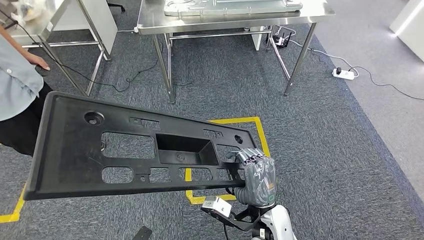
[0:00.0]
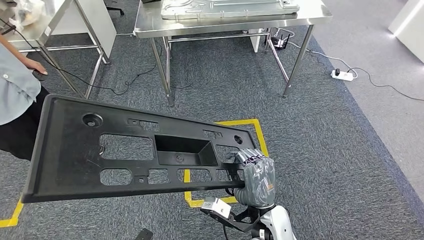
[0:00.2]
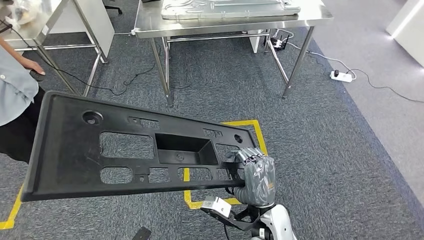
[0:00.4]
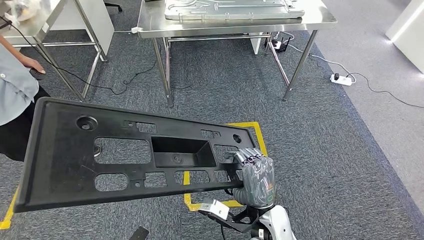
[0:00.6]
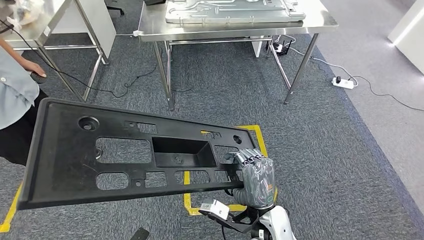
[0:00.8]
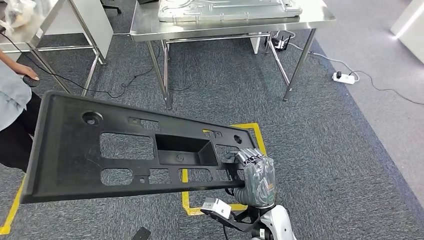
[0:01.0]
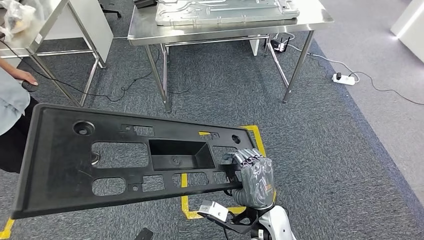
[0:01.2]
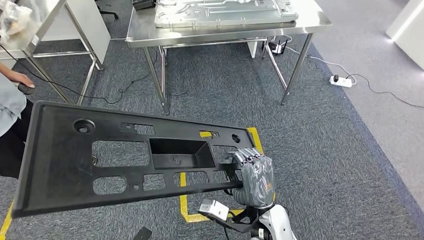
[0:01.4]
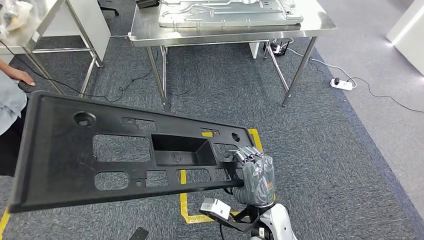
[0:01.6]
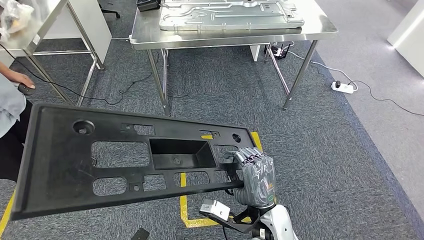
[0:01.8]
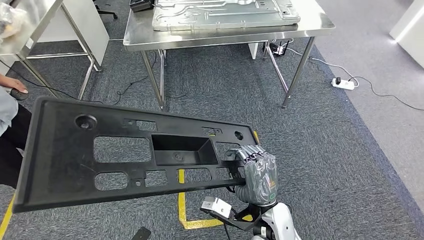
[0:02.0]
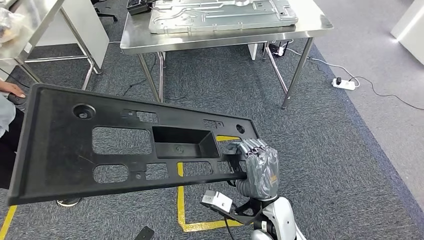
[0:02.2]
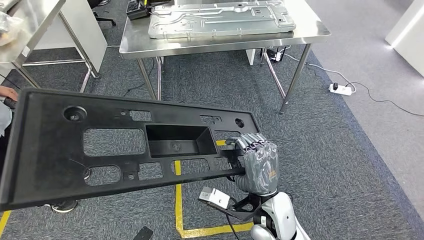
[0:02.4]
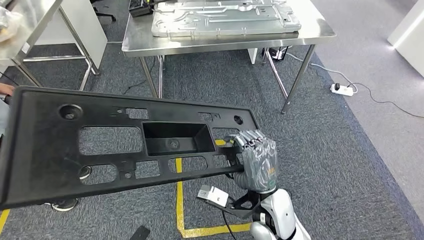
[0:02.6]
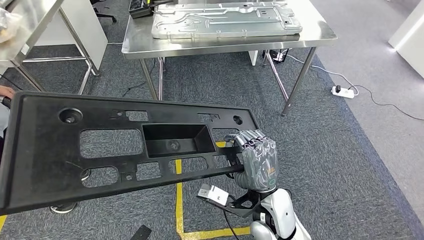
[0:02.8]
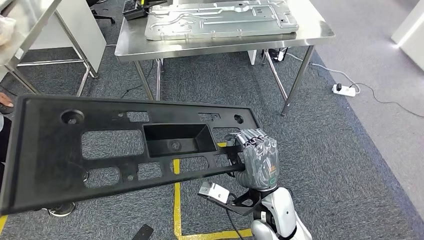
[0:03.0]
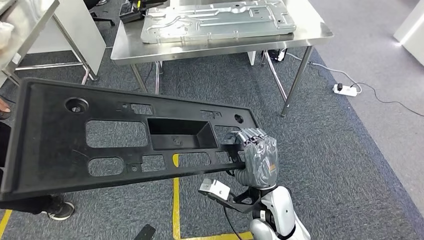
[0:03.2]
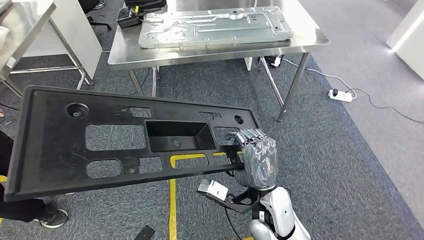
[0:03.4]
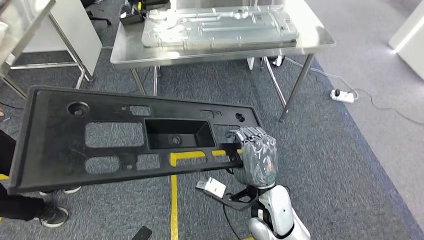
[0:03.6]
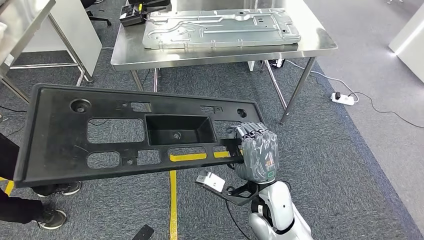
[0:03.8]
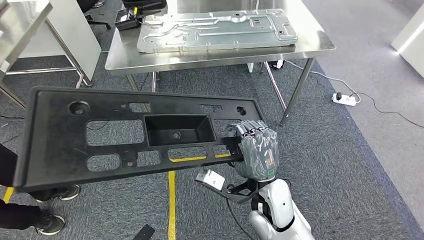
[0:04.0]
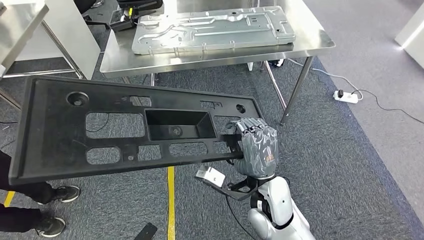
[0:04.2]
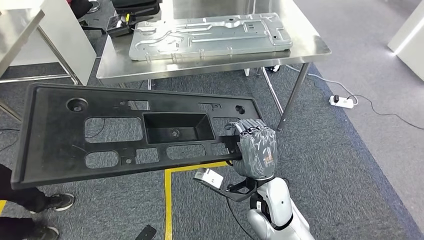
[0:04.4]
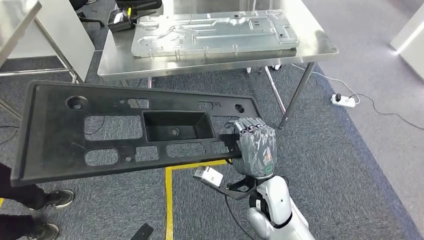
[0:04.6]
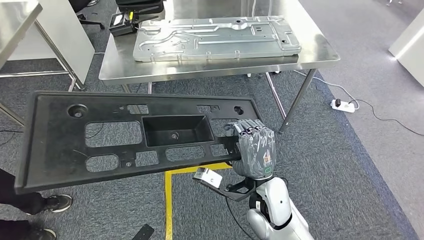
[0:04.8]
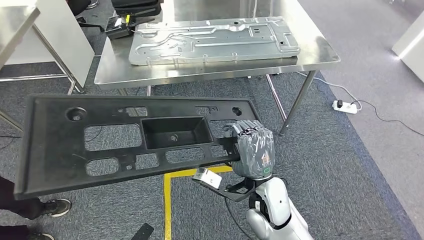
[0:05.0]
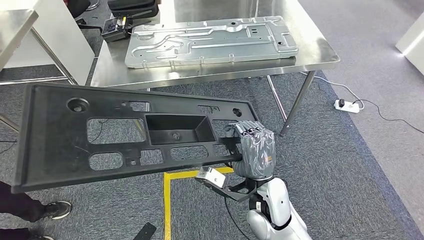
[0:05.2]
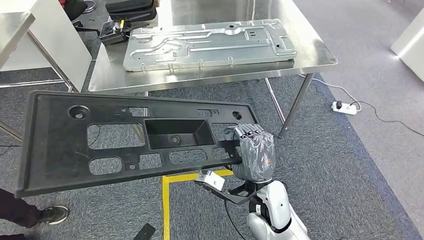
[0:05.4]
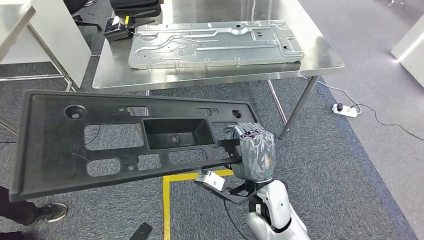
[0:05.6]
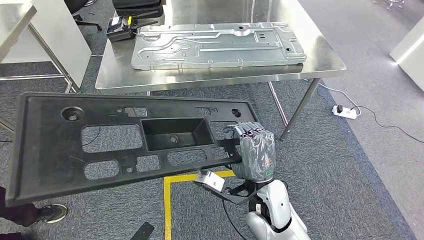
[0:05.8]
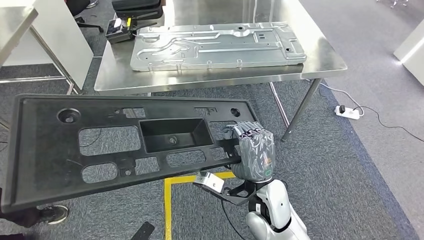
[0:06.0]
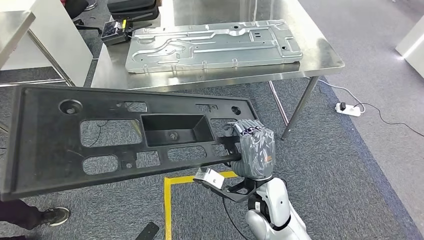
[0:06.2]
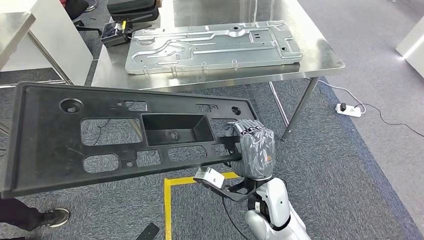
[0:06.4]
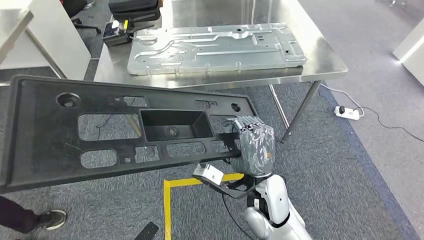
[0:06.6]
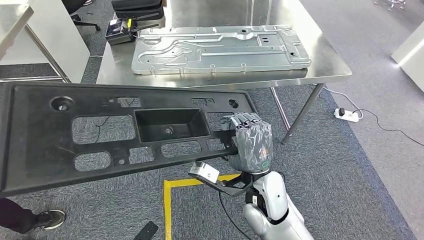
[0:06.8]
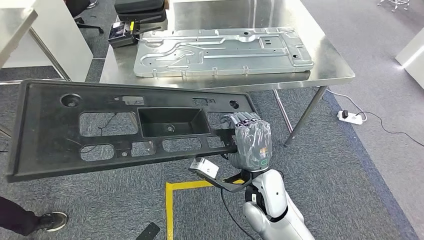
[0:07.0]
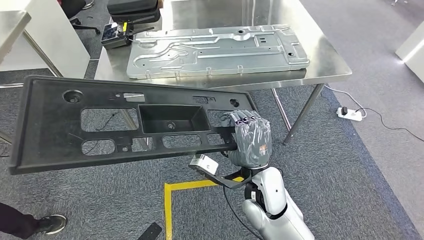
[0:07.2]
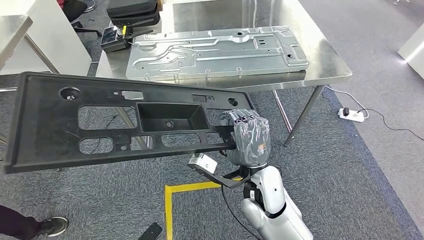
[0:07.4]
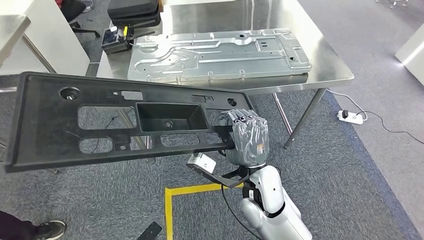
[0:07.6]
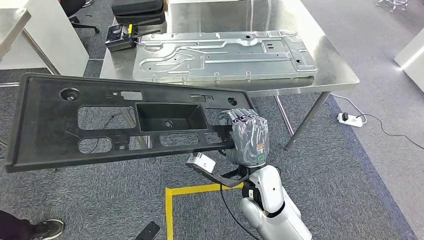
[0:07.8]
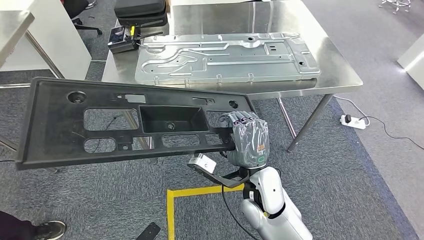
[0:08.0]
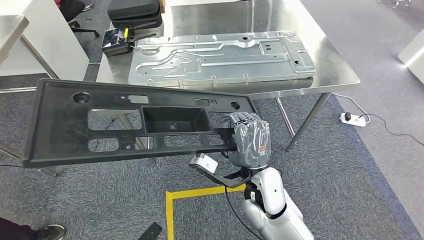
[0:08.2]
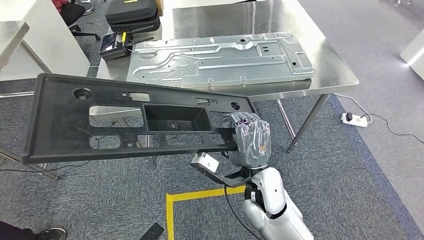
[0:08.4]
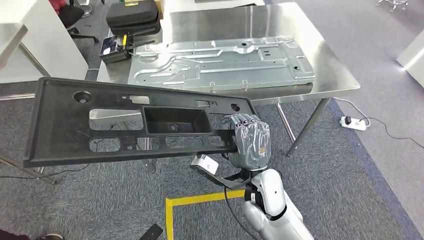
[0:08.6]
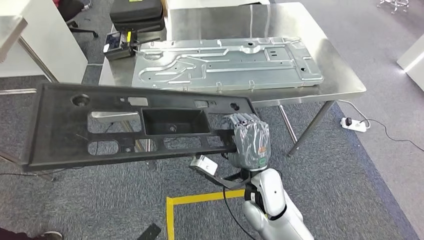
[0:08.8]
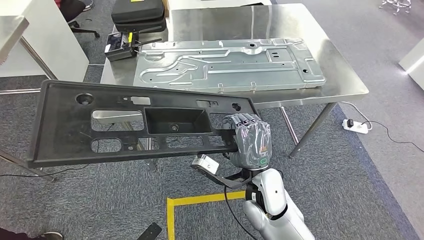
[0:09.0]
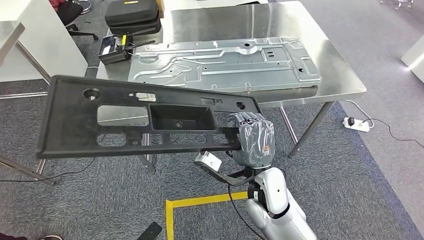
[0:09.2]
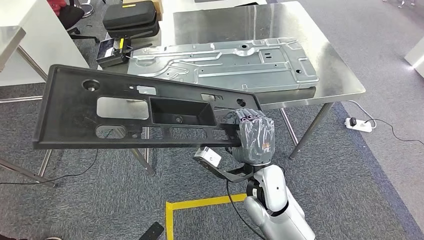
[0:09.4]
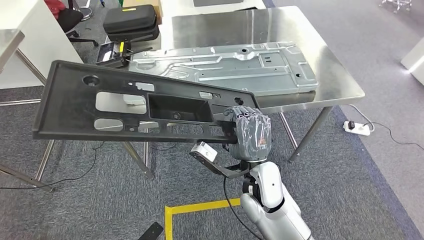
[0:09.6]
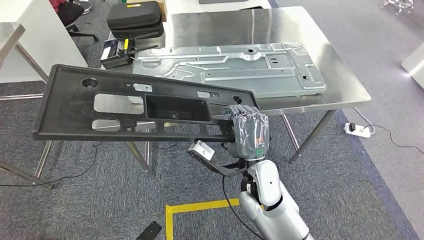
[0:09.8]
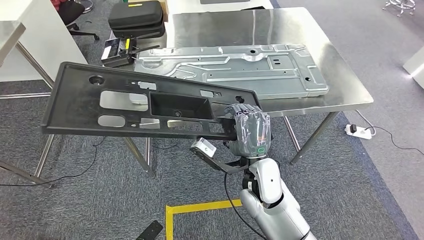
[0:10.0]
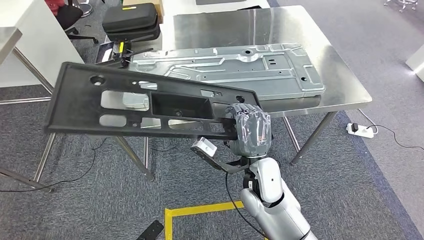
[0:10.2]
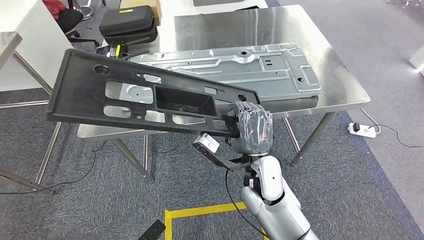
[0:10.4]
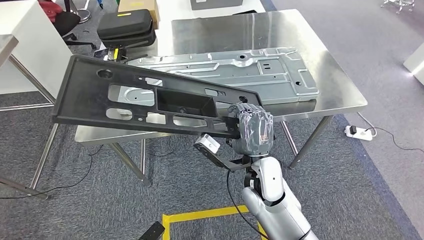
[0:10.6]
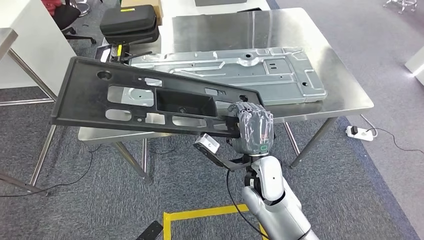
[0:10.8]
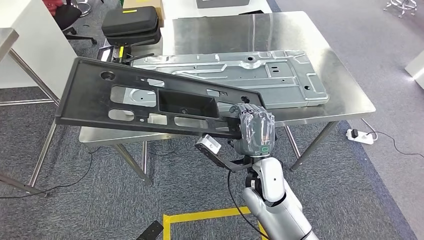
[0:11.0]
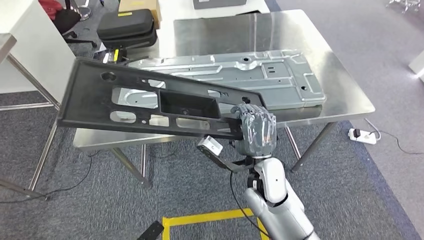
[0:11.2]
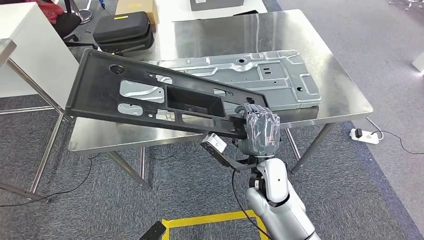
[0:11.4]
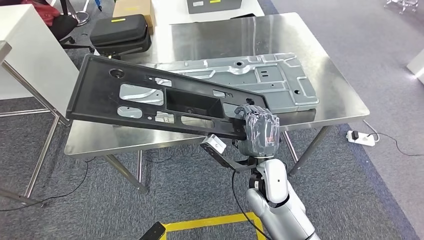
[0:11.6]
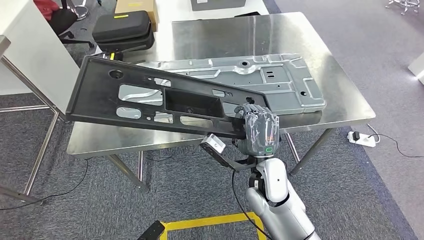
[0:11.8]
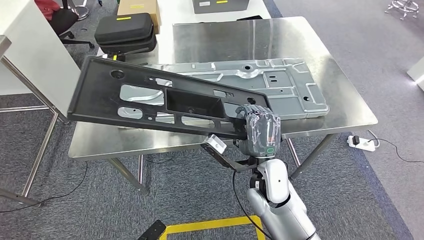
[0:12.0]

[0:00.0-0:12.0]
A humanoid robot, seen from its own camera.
Step, 0:00.0 to 0:08.8: Move the large material to the front of the workbench.

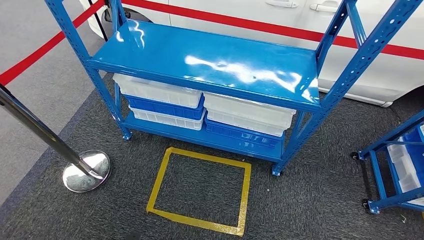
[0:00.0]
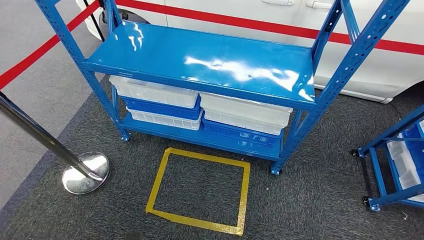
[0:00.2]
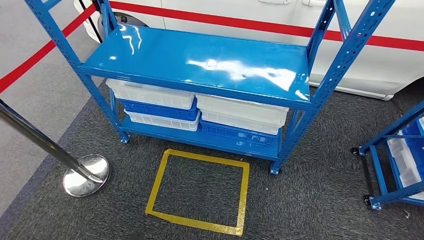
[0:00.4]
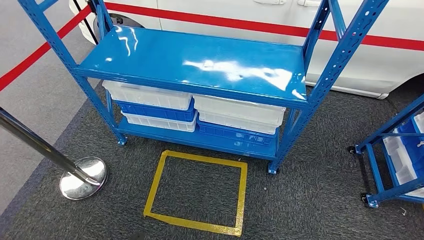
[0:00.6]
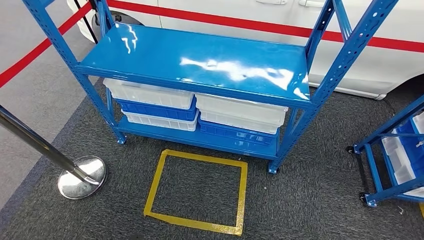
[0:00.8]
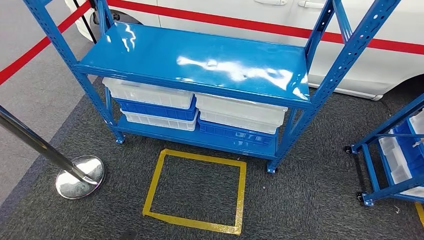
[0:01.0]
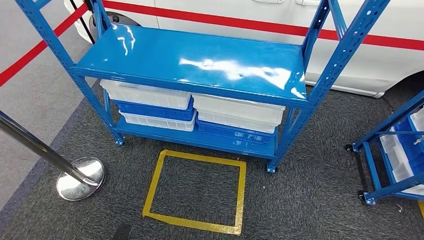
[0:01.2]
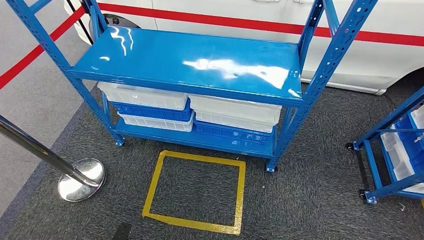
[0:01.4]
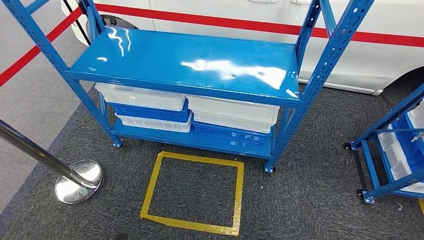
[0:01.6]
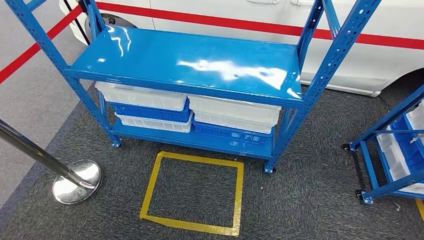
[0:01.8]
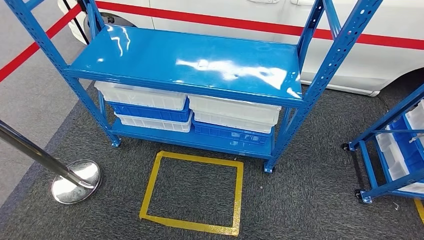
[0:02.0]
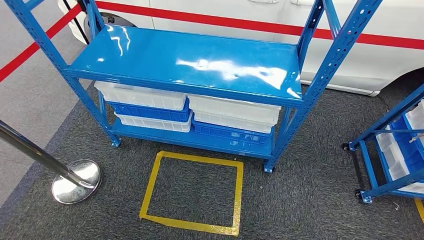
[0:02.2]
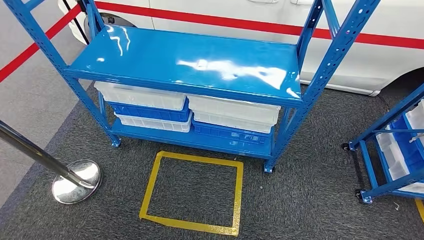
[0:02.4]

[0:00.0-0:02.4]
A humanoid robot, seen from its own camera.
Step, 0:00.0 to 0:02.2: Move to the initial position of the shelf.
